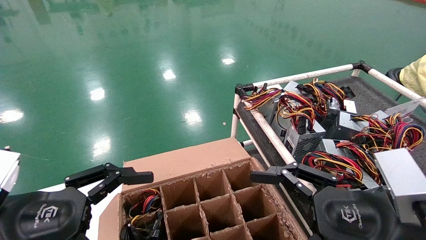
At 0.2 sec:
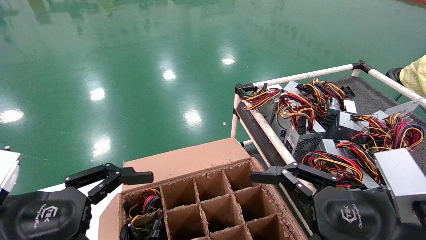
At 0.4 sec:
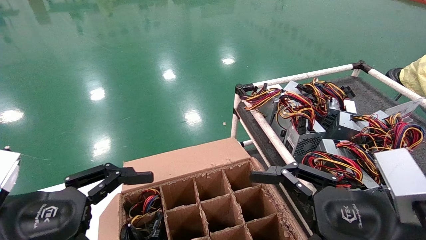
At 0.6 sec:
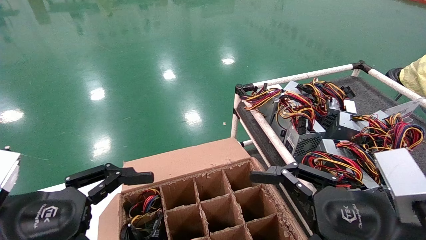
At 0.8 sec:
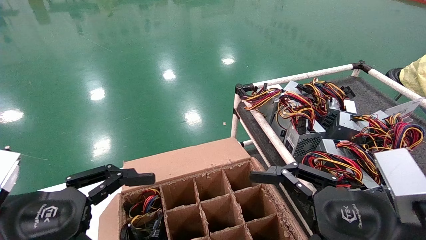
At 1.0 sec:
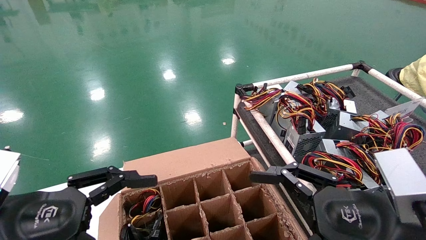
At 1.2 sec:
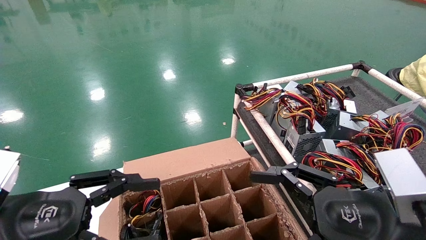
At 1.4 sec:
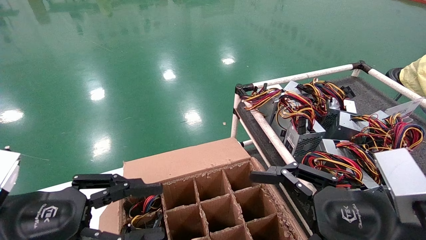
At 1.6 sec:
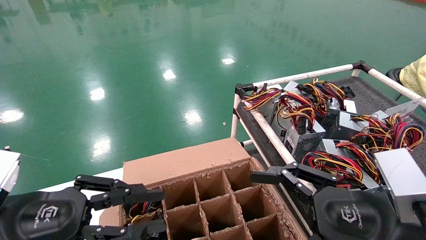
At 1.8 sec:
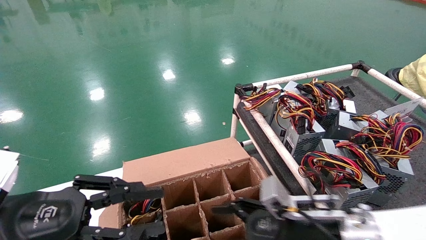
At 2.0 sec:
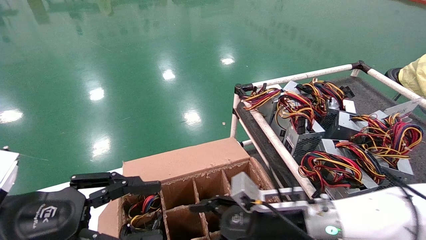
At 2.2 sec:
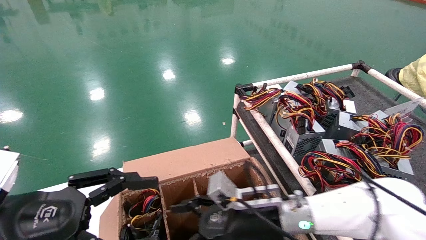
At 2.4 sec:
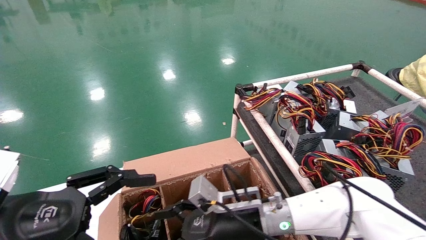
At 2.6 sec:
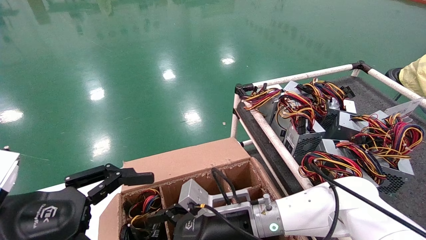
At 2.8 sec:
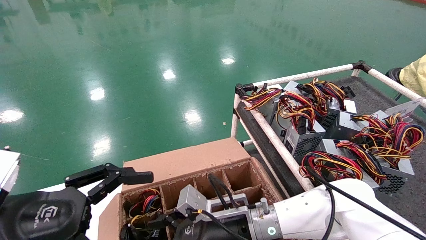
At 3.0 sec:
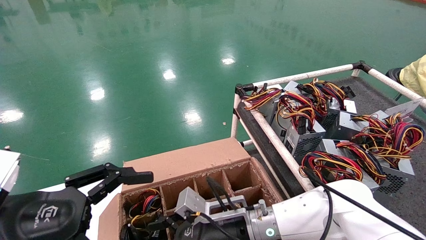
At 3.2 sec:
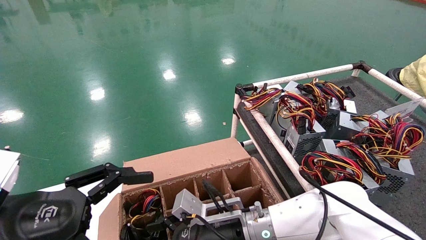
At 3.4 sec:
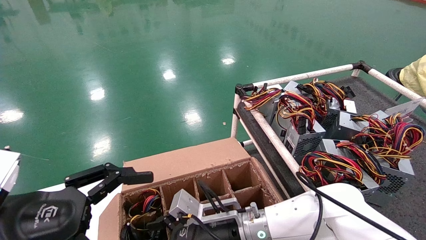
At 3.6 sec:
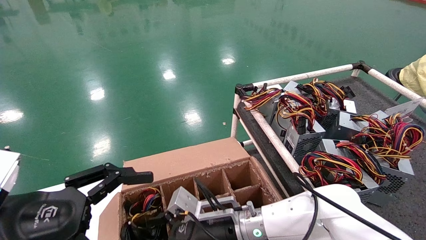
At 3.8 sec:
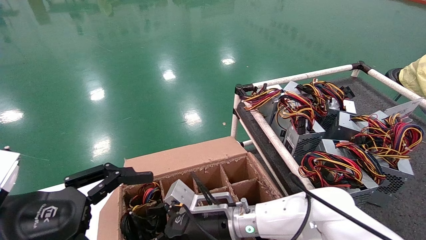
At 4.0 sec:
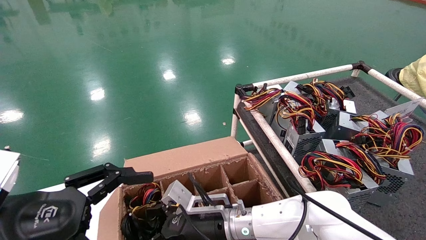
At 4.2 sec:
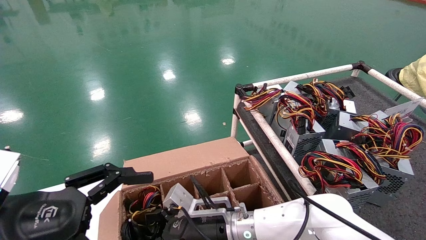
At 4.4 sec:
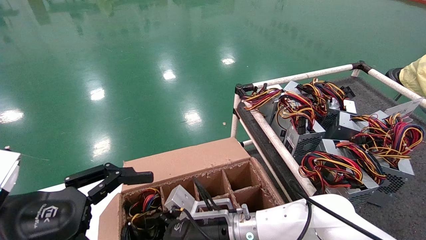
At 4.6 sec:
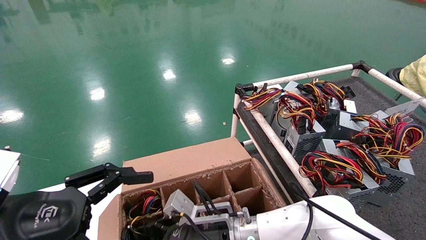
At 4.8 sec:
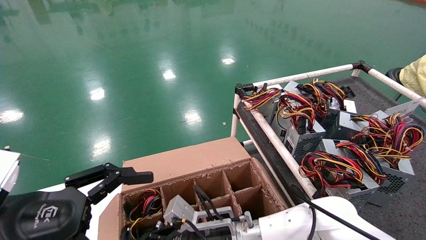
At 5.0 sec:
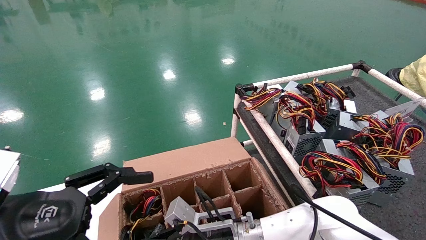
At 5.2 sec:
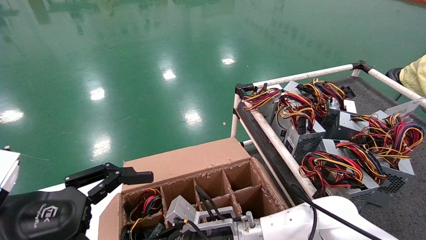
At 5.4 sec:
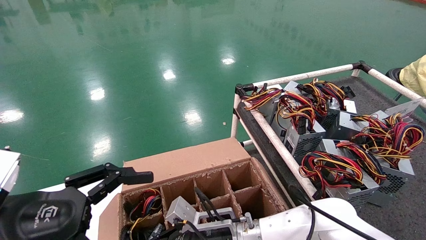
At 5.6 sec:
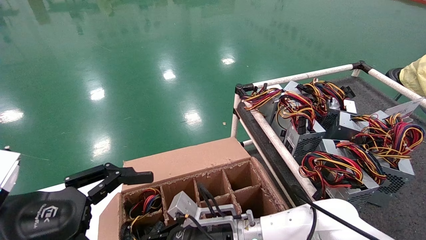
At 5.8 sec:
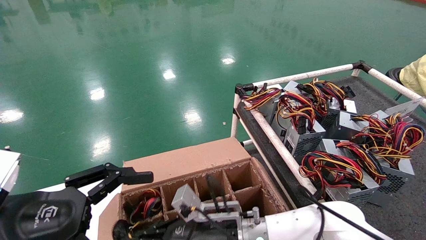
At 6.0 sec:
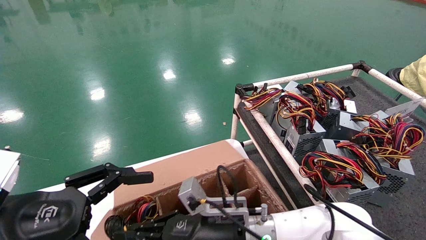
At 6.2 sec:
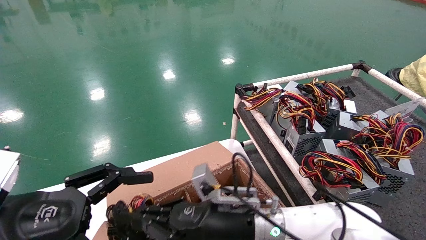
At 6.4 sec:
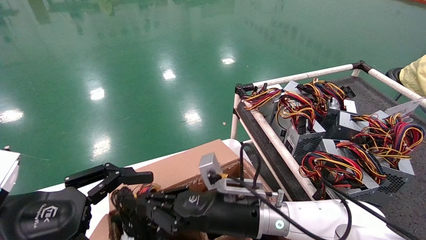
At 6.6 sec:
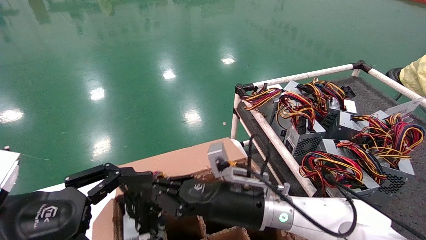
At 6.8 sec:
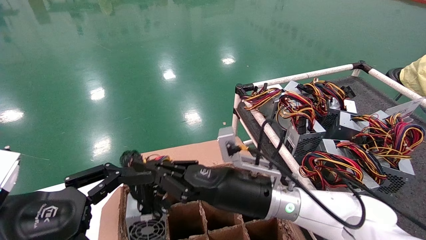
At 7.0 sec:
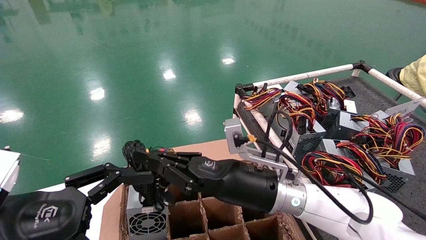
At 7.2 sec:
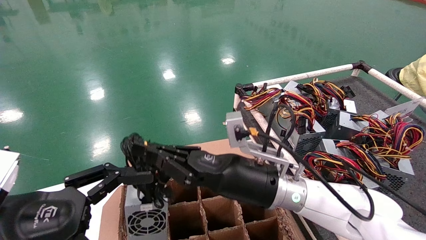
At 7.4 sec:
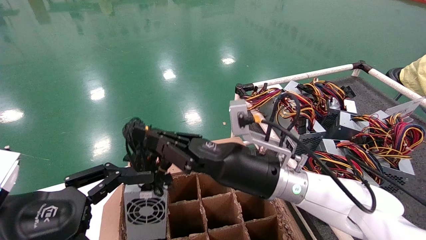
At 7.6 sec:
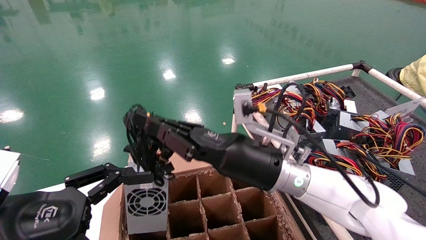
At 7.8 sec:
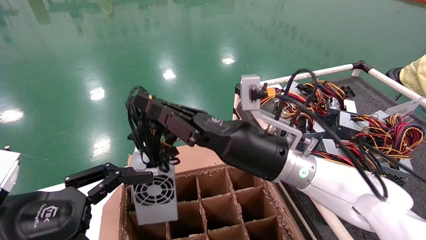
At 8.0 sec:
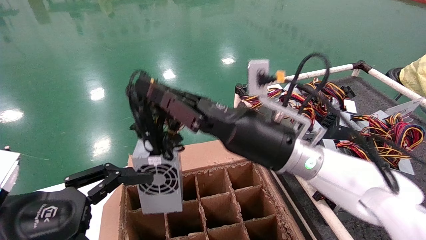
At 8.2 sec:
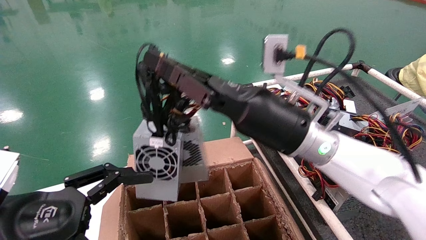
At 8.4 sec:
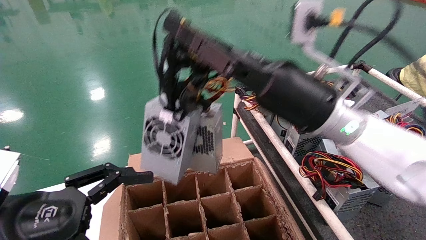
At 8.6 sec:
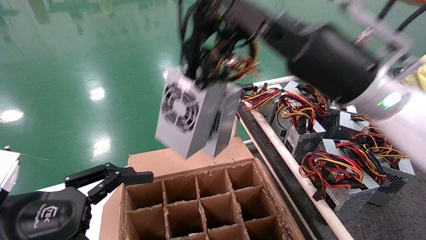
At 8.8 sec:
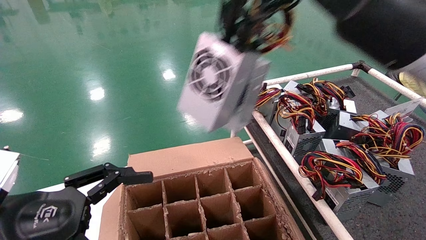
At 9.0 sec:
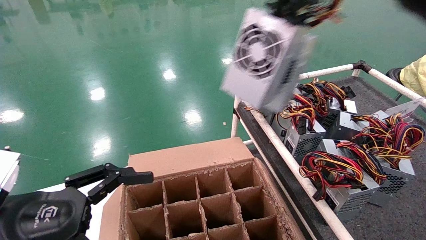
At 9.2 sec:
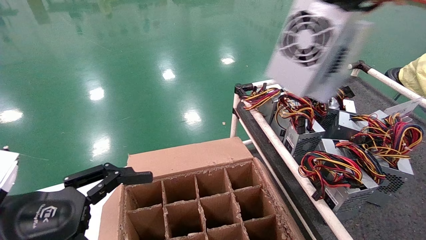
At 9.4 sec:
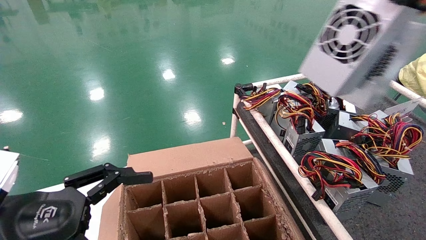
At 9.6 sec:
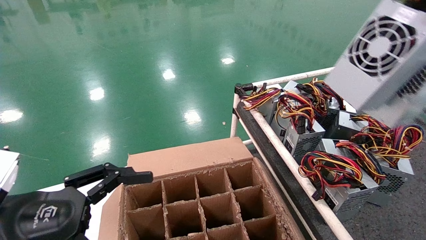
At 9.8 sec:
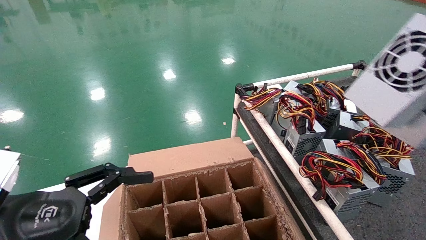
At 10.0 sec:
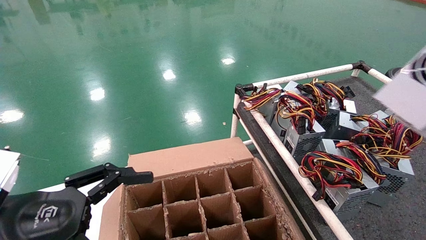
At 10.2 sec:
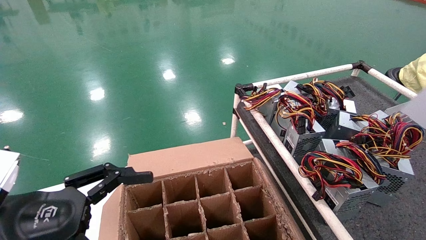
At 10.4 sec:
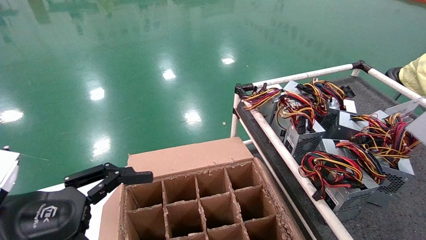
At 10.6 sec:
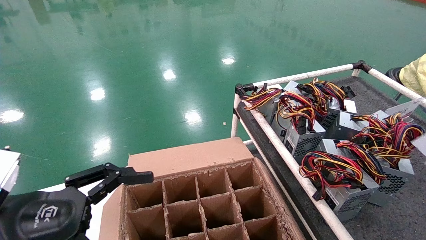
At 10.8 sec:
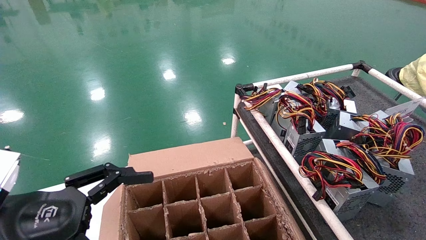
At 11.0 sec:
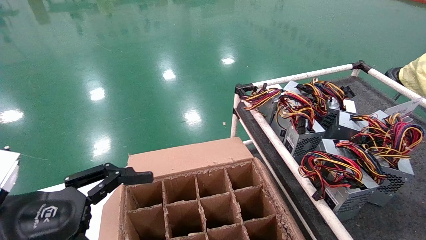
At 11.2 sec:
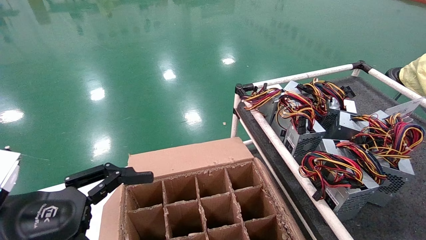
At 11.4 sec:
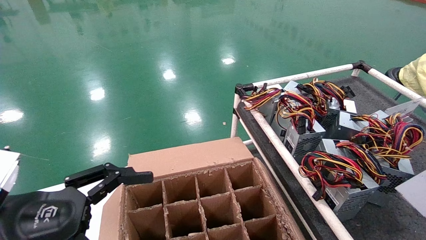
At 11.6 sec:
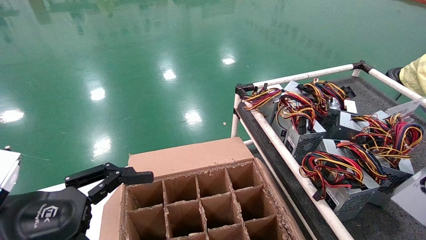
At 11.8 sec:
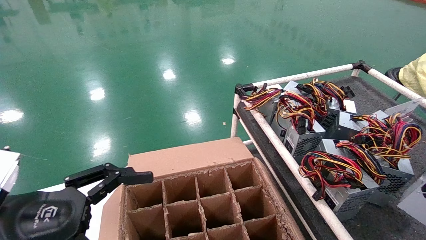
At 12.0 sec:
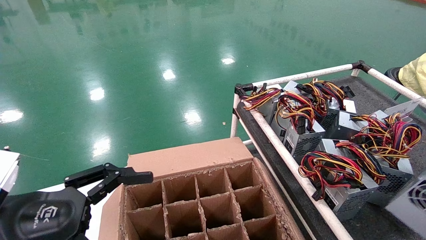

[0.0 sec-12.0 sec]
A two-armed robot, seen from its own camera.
Step, 2.2 sec to 6.8 sec: Grab and lift the power supply from the large box.
0.0 sec to 1.6 sec: The left gripper closes its fingers.
1.6 sec to 3.0 sec: The left gripper closes up, while the right gripper heads forward, covering some 5 cm.
3.0 sec to 4.4 sec: The left gripper opens up. The right gripper moves to the left and forward, about 20 cm.
4.4 sec to 6.0 sec: The grippers stay close to where they were, moving slightly.
6.0 sec to 7.6 sec: The right gripper closes its fingers.
7.6 sec to 9.0 sec: The right gripper goes approximately 10 cm upward.
9.0 sec to 10.4 sec: The right gripper shifts some 25 cm upward and to the right.
10.4 sec to 12.0 sec: The right gripper shifts roughly 35 cm to the right and backward.

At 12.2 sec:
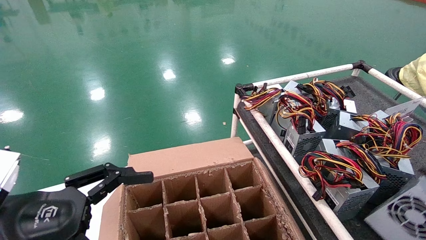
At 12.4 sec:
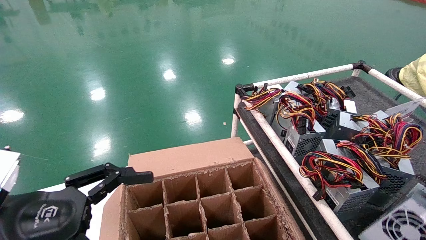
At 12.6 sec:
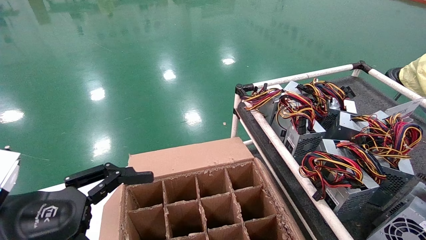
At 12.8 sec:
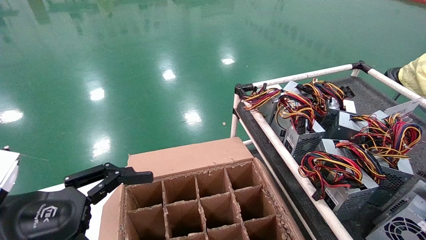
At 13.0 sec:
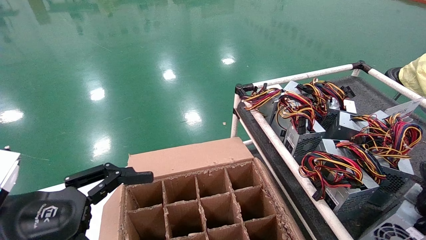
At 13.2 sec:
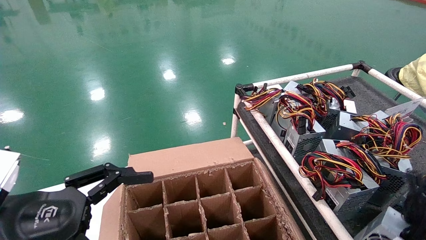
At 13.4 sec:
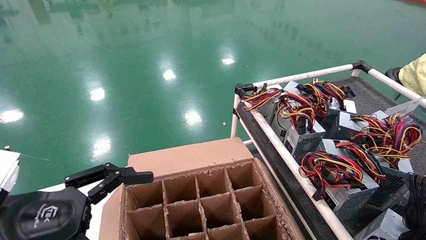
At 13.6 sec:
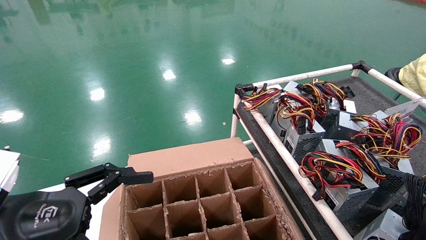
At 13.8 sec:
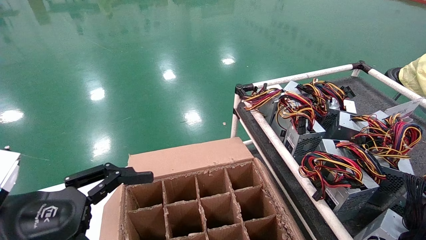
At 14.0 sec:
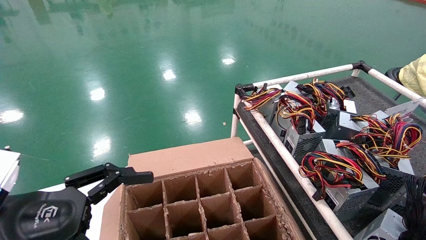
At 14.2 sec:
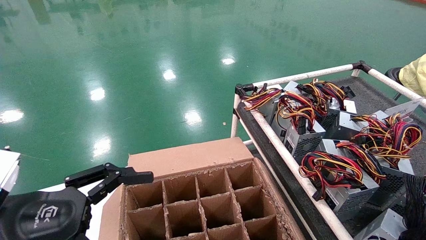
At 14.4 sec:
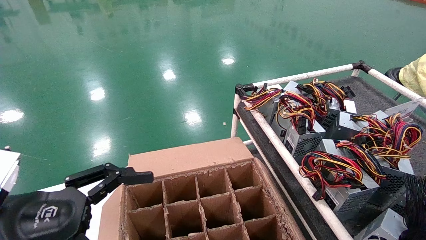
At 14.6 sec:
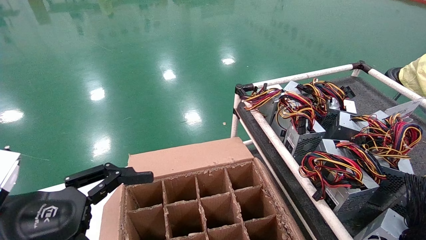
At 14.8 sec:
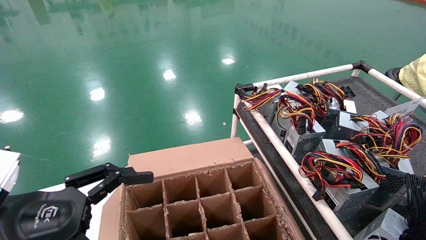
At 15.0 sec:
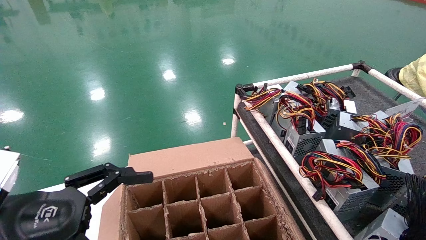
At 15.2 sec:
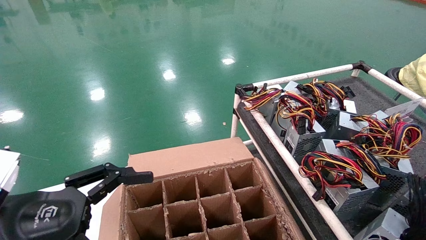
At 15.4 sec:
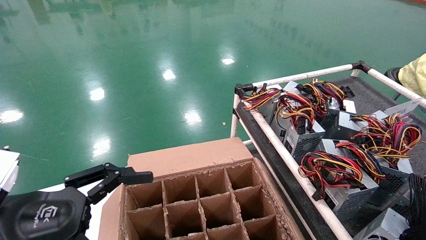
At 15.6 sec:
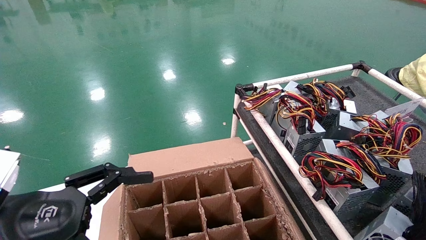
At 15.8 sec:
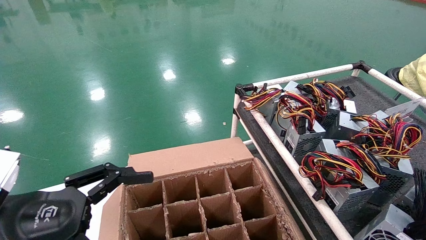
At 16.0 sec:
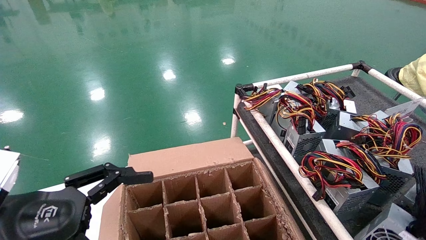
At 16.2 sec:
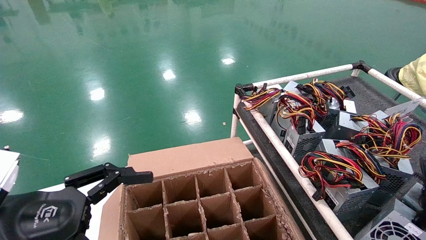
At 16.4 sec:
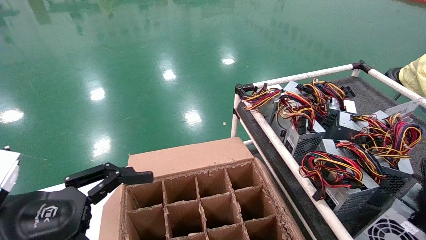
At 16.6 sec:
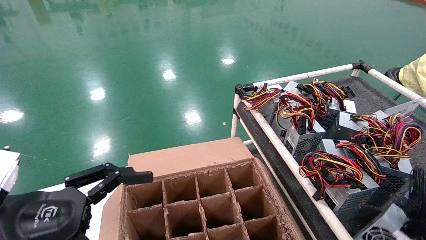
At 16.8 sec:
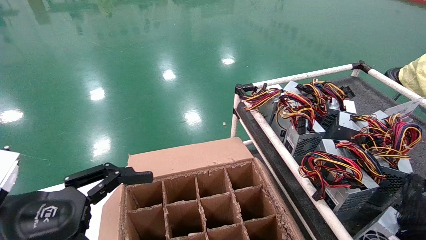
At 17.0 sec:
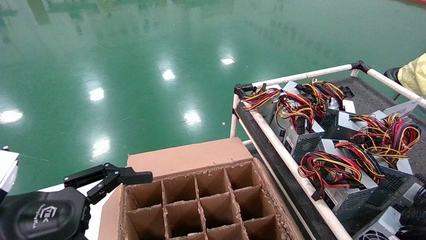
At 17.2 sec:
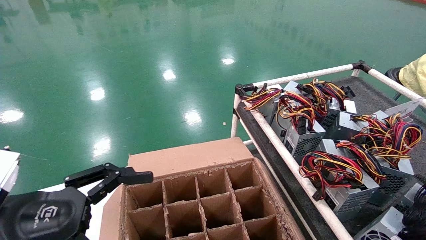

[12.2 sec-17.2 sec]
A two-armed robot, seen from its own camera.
Step, 12.2 sec to 17.2 sec: Place the power supply on the operating table.
12.2 sec to 13.8 sec: The right gripper moves downward, about 15 cm.
13.8 sec to 15.6 sec: The right gripper heads downward, covering some 5 cm.
15.6 sec to 17.2 sec: The right gripper opens.
